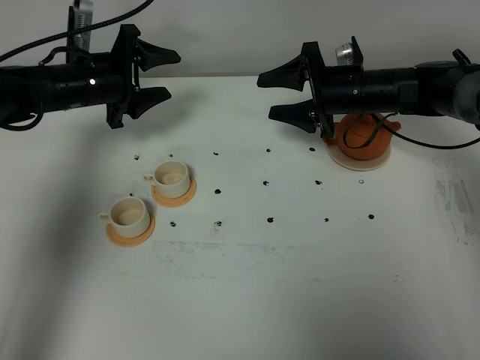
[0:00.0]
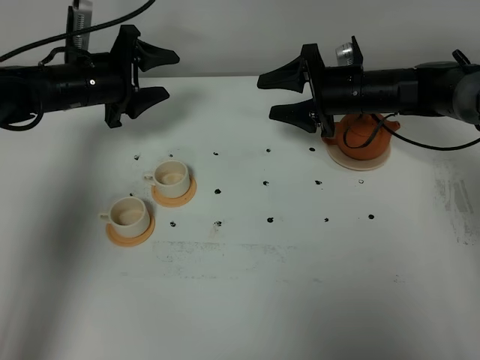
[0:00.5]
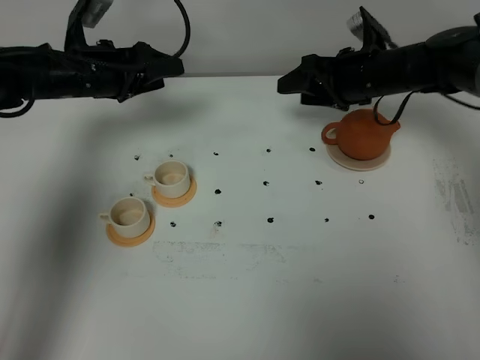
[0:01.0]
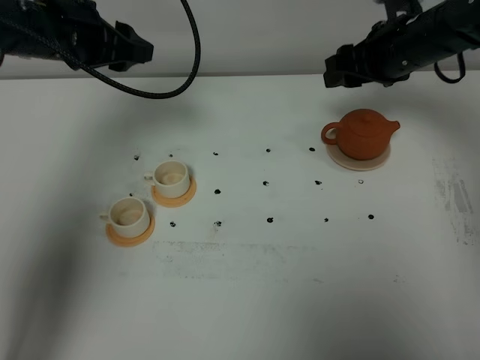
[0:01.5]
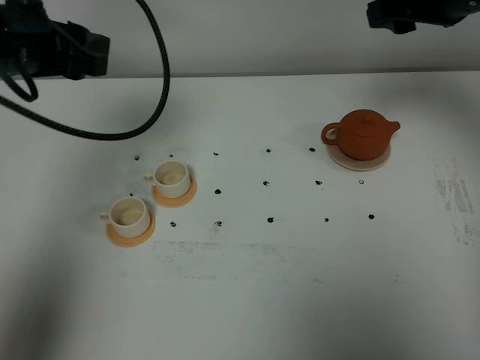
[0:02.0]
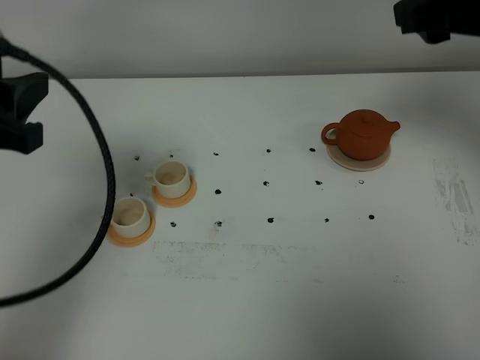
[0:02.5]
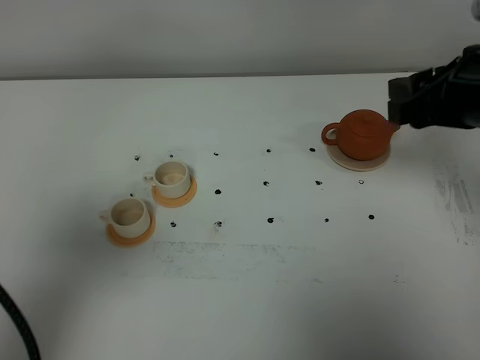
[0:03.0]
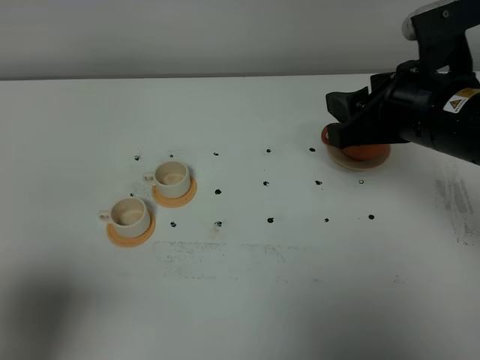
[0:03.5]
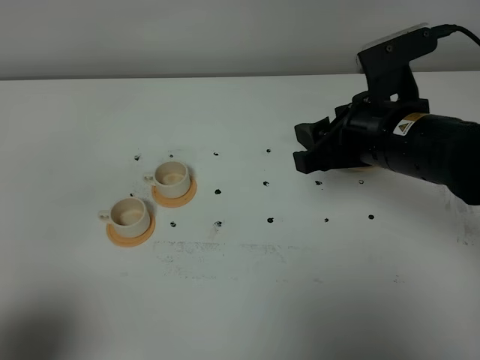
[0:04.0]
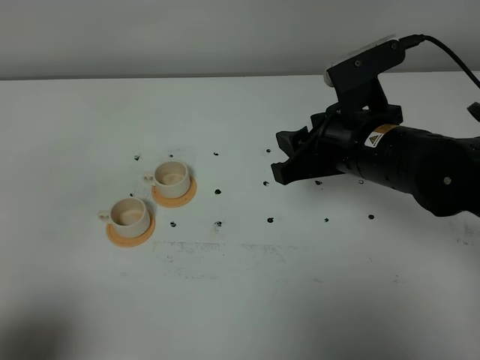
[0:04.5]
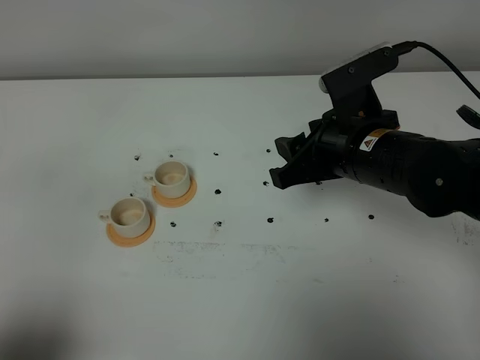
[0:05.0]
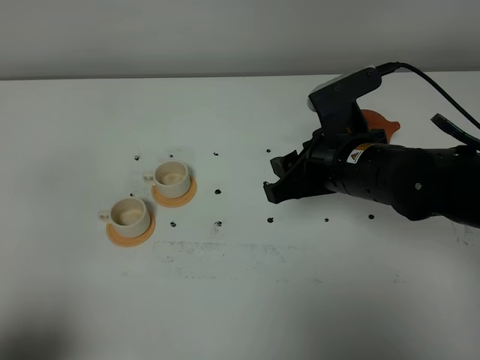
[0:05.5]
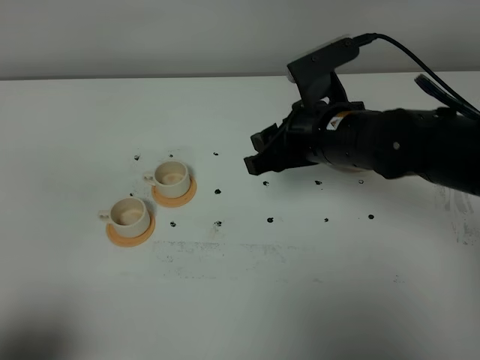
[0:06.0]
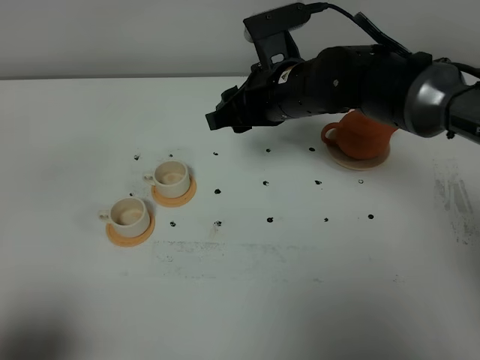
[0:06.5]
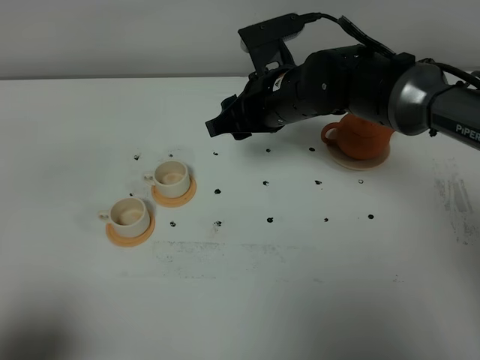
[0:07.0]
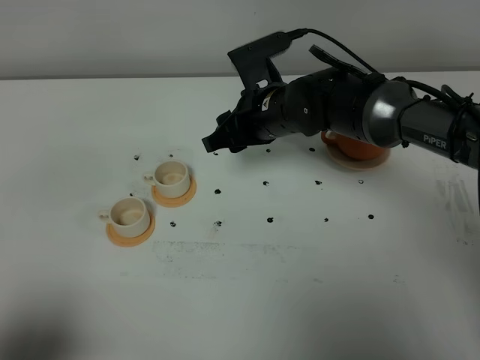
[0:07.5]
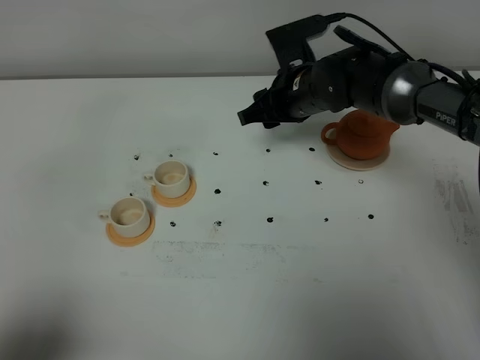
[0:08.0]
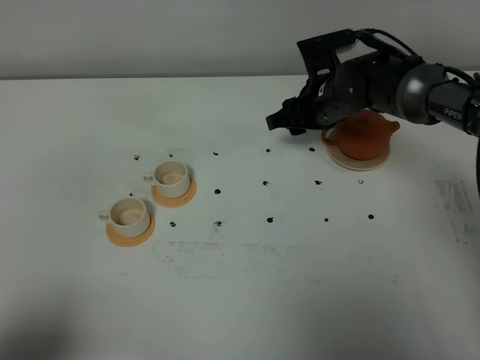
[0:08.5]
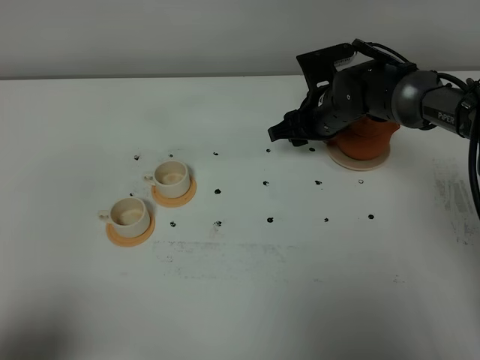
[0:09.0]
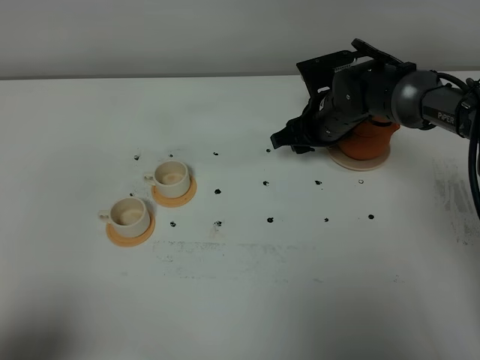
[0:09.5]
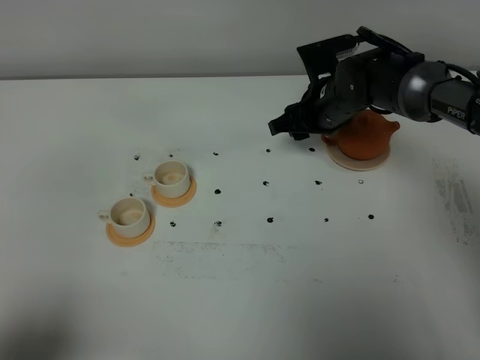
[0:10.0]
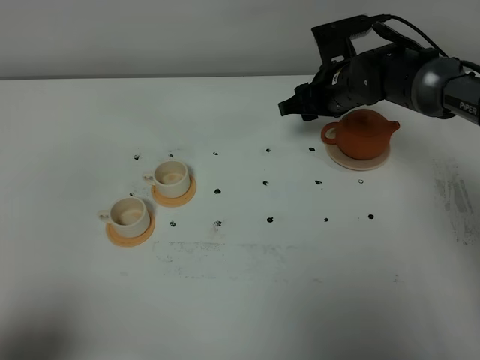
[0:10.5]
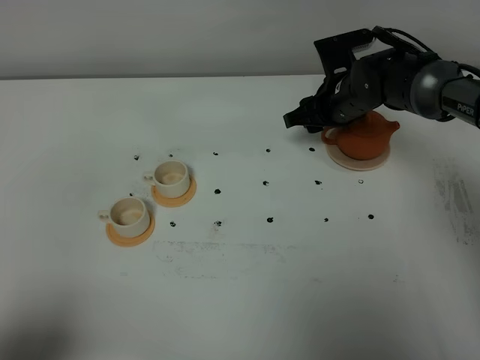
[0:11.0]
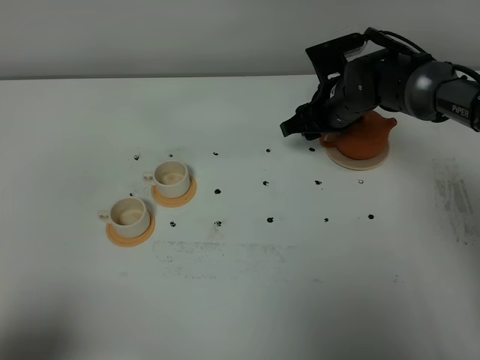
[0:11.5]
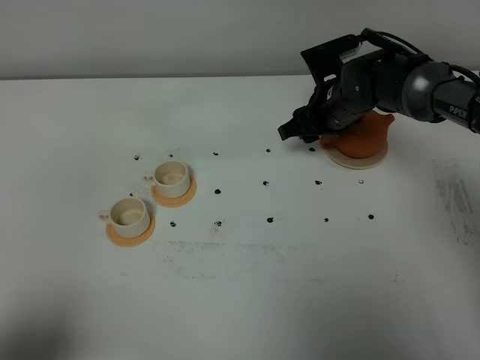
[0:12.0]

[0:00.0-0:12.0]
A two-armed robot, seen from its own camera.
Task of the whole recording: grasp the brown teapot and pour the tea into the two white teacups one by one, put the brown teapot back in its original place.
0:00.0 to 0:02.0: Both grippers travel together upward and backward, about 25 cm.
0:02.0 to 0:04.0: The right gripper travels downward, backward and to the left by approximately 15 cm; the left gripper goes about 30 cm backward.
0:04.0 to 0:06.0: The right gripper goes approximately 5 cm to the left.
0:06.0 to 0:08.0: The right gripper heads forward, covering roughly 10 cm.
0:08.0 to 0:10.0: The grippers stay close to where they were, moving slightly.
0:10.0 to 0:12.0: The grippers stay close to where they were, moving slightly.

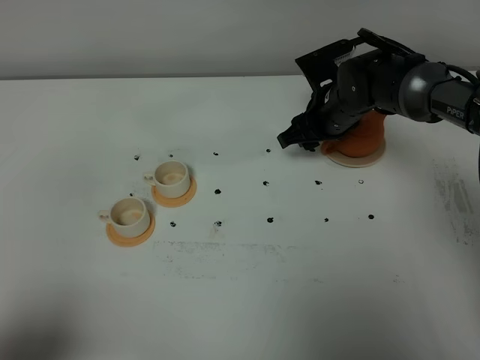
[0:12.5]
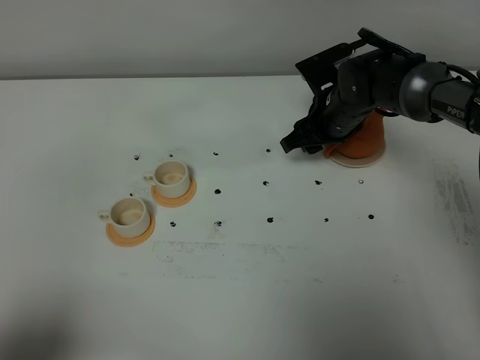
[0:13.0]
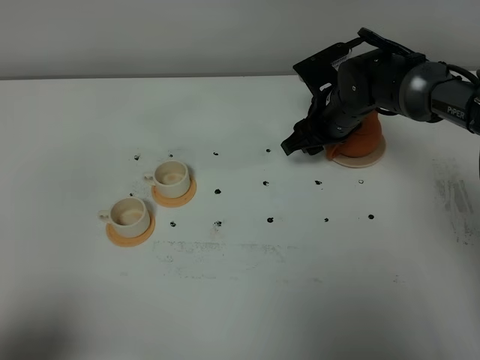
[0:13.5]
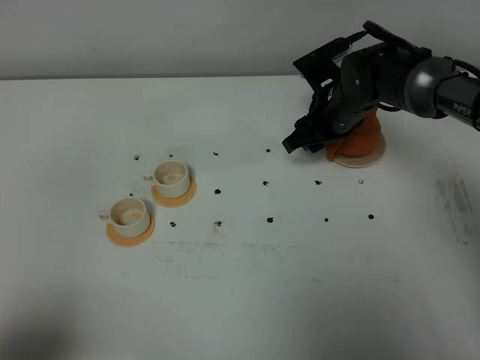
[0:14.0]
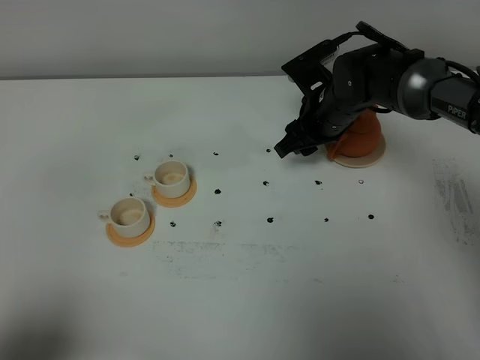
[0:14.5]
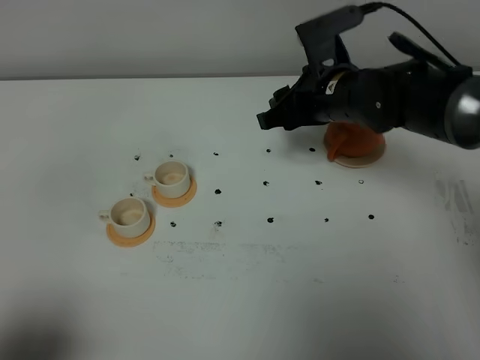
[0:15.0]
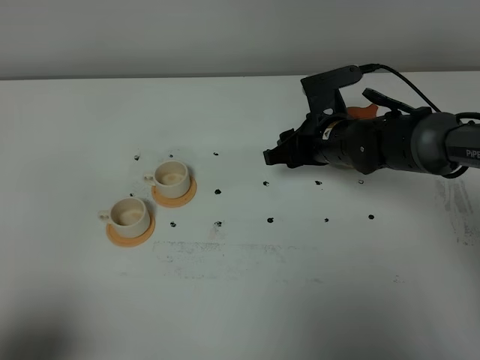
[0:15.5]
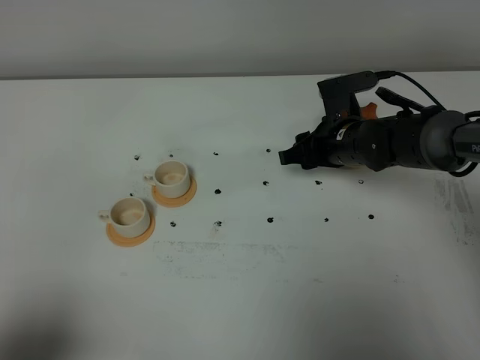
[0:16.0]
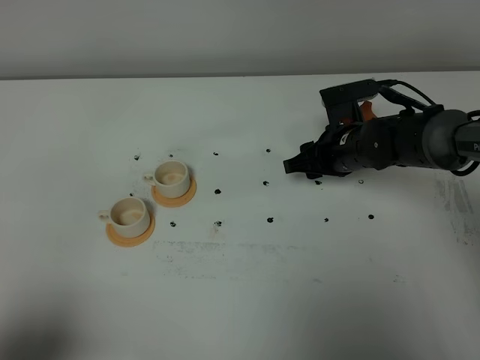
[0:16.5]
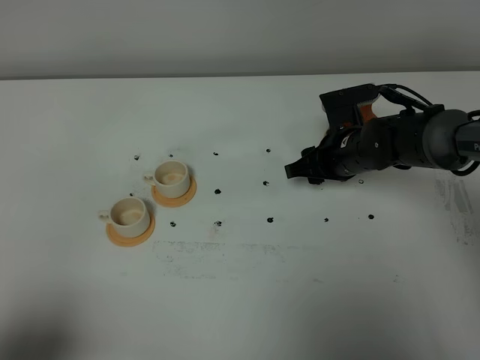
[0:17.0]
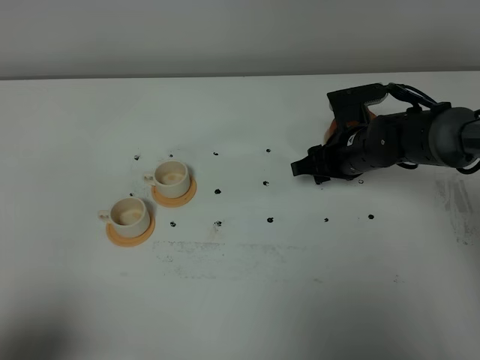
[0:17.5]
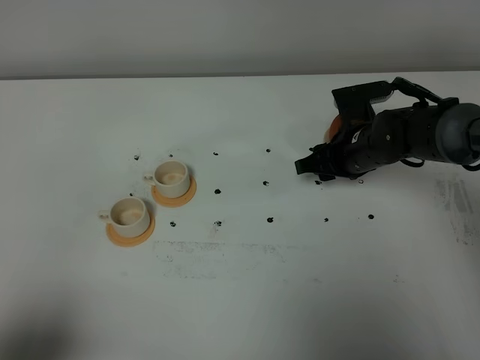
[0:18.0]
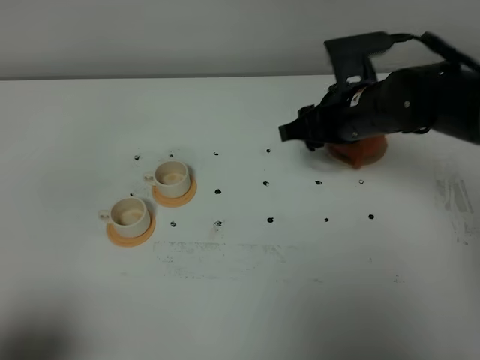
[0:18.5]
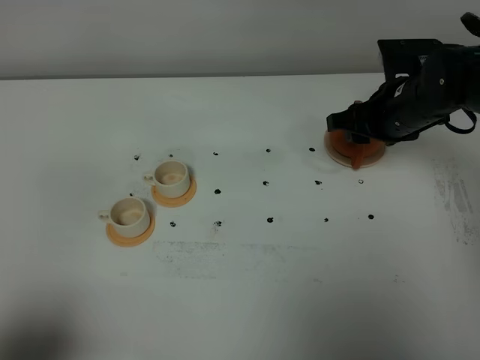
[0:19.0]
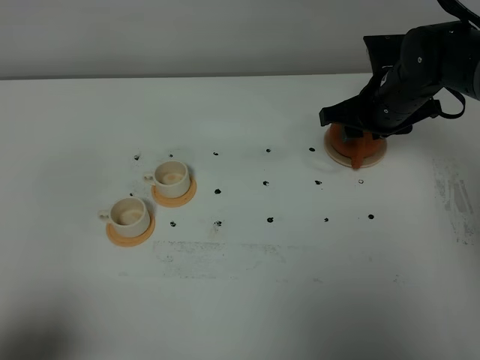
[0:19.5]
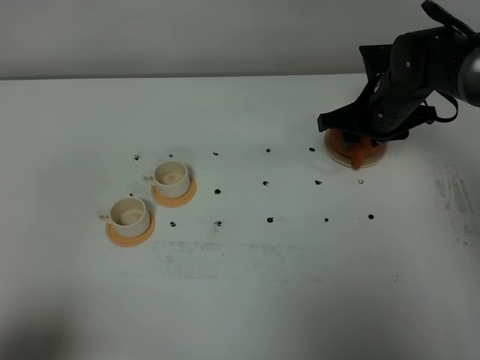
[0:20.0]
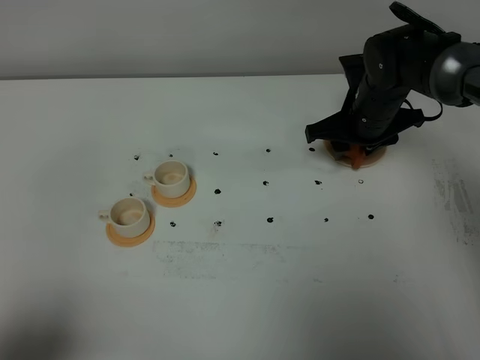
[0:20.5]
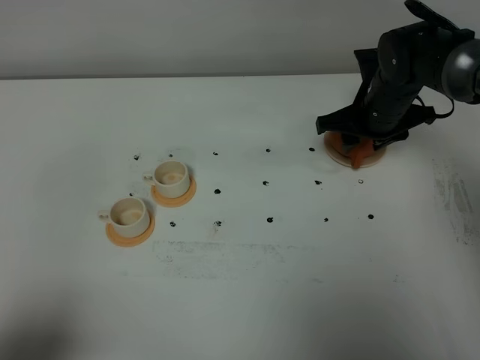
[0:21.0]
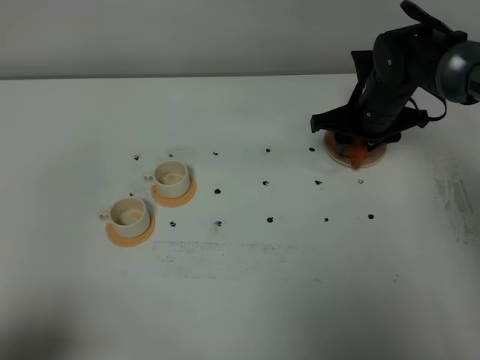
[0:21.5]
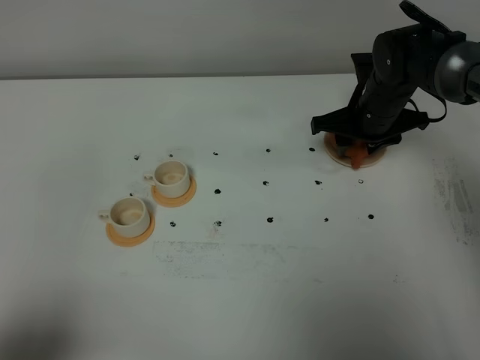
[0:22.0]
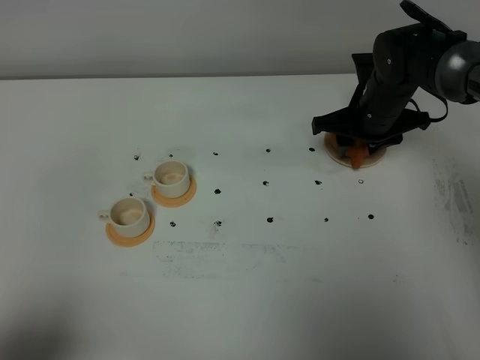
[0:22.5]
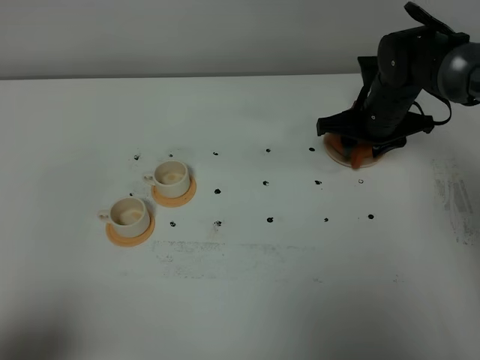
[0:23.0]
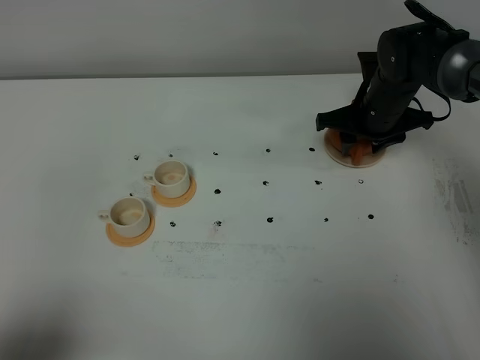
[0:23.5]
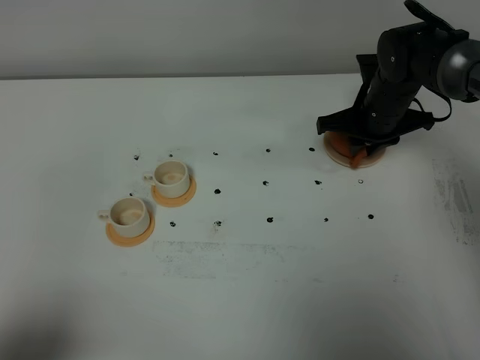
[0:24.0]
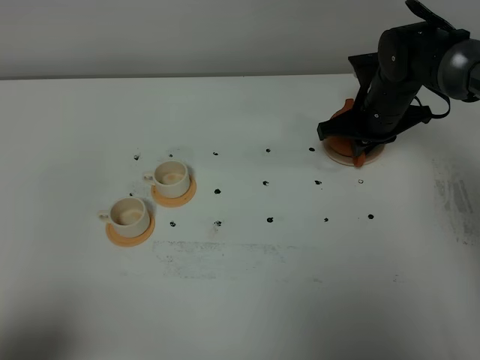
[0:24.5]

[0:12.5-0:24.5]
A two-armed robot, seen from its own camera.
Task of the whole recording: grasp the brown teapot and pour the tea into the two white teacups one by one, put the brown teapot back in its original place.
0:12.5 to 0:14.5: There are only small adjustments of the grippers.
0:14.5 to 0:16.5: The right gripper moves downward, roughly 5 cm.
0:16.5 to 0:18.5: The right gripper moves upward, roughly 10 cm.
0:18.5 to 0:20.5: The right gripper heads forward and downward, covering approximately 10 cm.
0:20.5 to 0:22.5: There are only small adjustments of the grippers.
0:22.5 to 0:24.5: The right gripper closes its fingers.

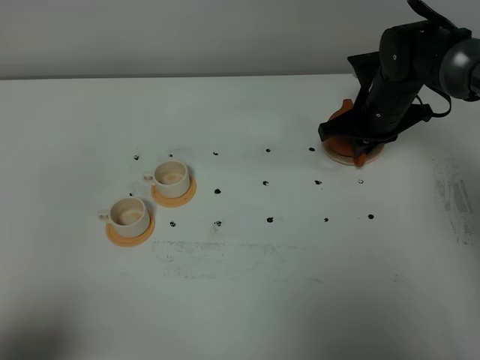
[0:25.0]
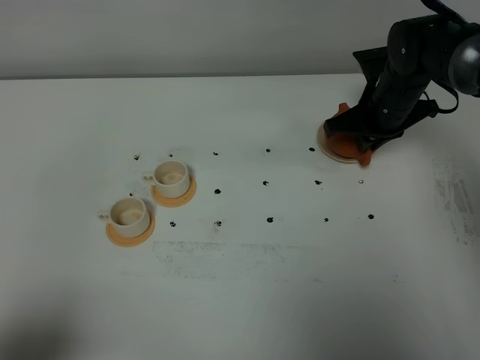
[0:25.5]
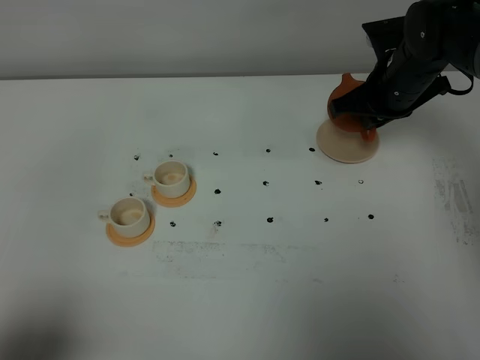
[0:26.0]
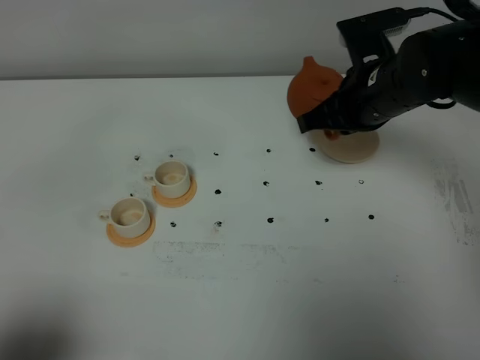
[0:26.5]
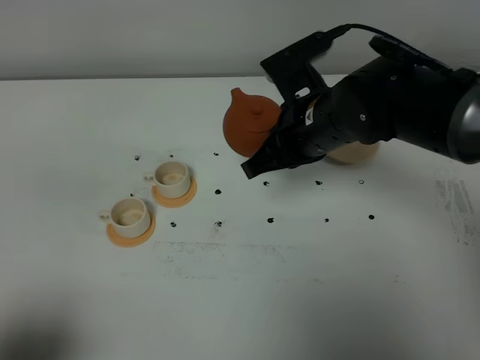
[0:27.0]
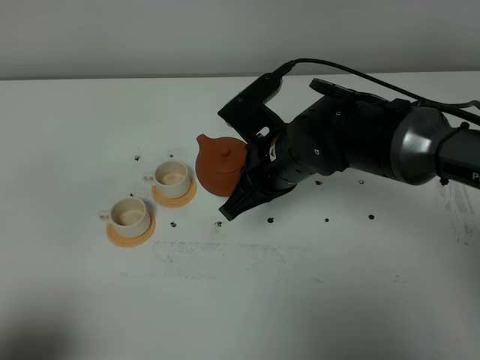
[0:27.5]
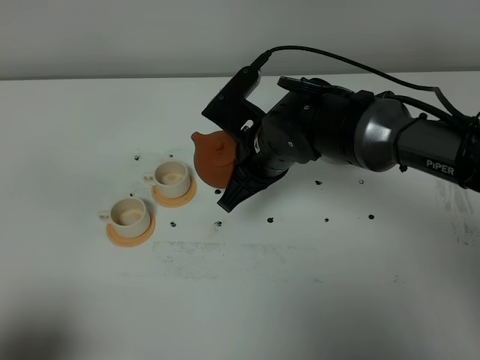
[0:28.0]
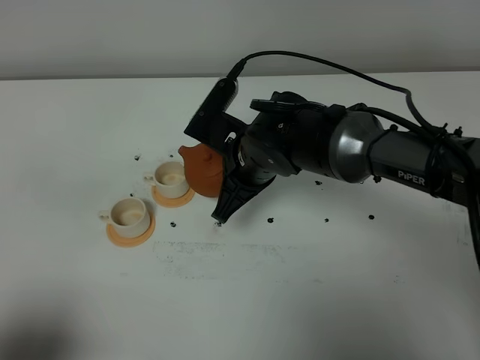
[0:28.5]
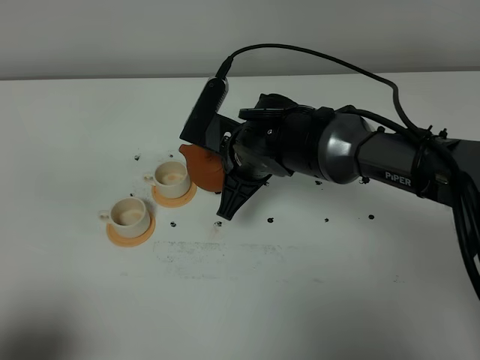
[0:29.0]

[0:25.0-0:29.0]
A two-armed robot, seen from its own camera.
Task of the whole recording: grasp the brown teapot and pour the tea into the two white teacups one by one, put the brown teapot back in its original place.
0:25.0 to 0:27.0: The right gripper shifts some 20 cm backward, to the left and upward.
0:27.0 to 0:29.0: The right gripper goes some 10 cm to the left and downward.
